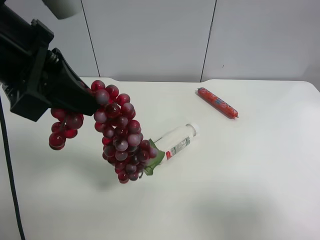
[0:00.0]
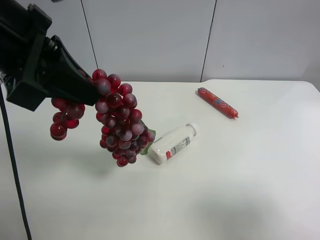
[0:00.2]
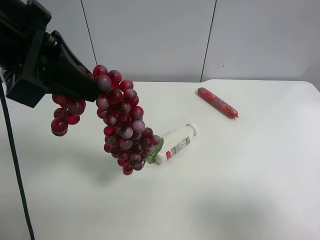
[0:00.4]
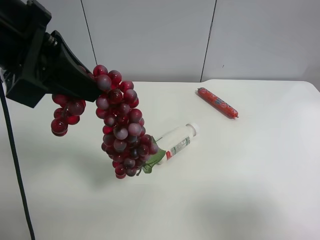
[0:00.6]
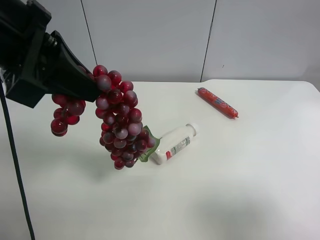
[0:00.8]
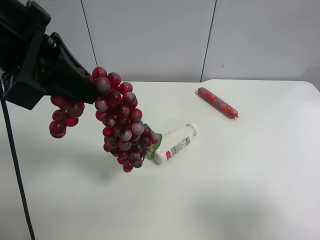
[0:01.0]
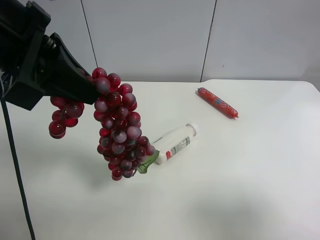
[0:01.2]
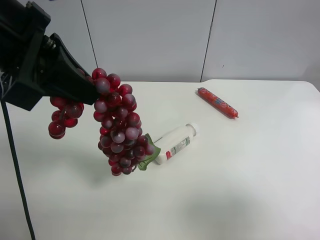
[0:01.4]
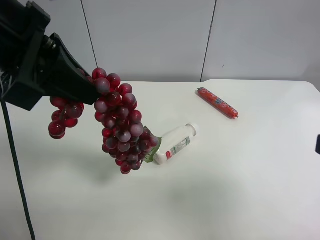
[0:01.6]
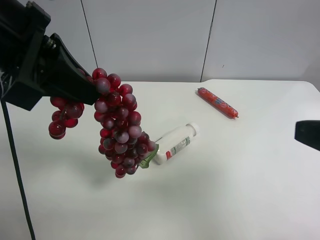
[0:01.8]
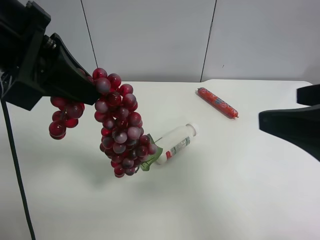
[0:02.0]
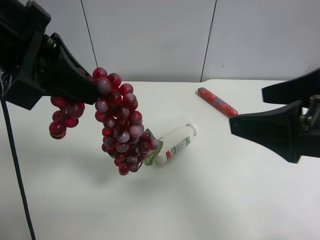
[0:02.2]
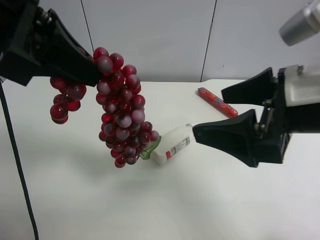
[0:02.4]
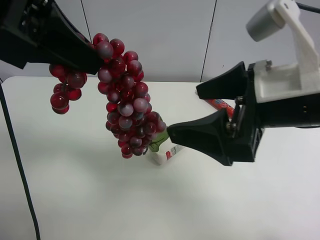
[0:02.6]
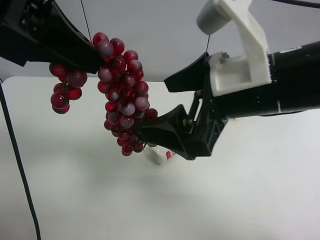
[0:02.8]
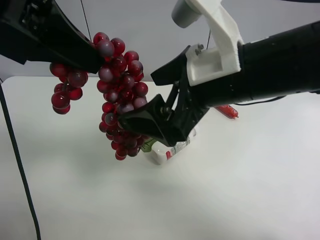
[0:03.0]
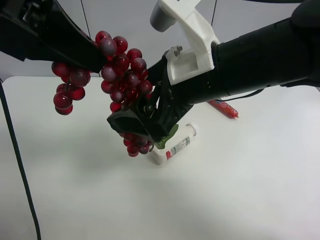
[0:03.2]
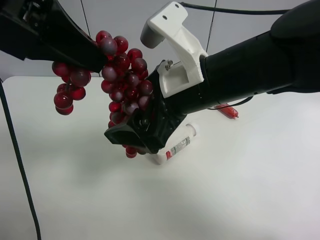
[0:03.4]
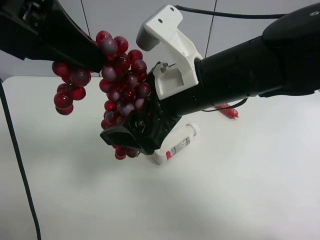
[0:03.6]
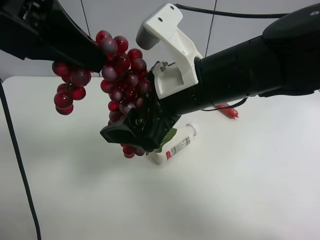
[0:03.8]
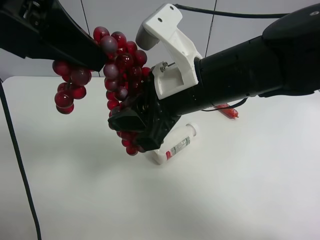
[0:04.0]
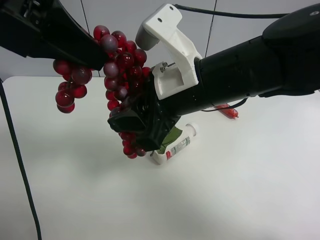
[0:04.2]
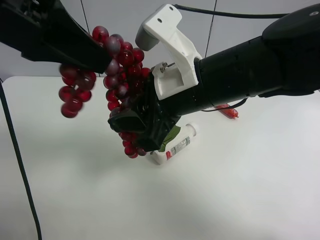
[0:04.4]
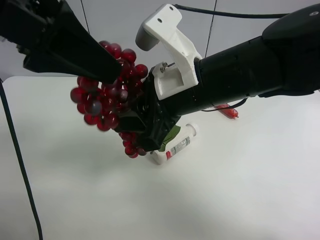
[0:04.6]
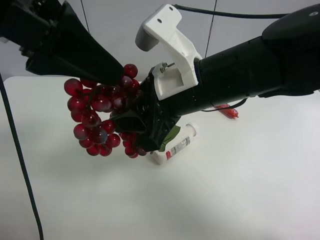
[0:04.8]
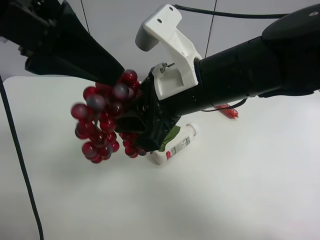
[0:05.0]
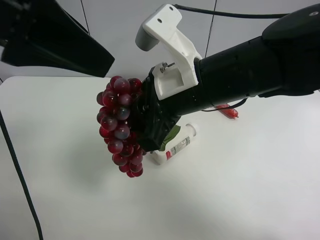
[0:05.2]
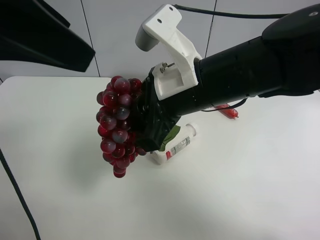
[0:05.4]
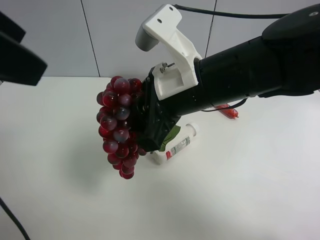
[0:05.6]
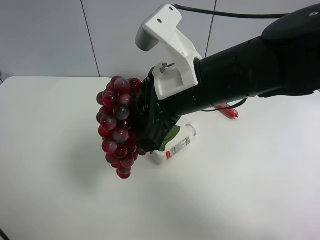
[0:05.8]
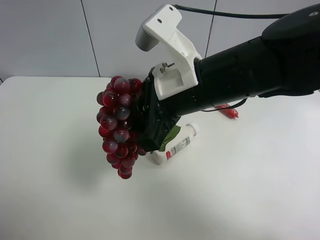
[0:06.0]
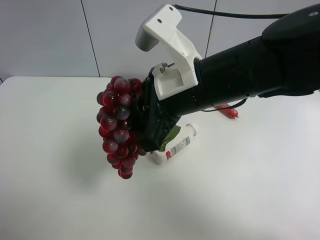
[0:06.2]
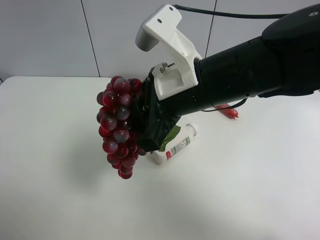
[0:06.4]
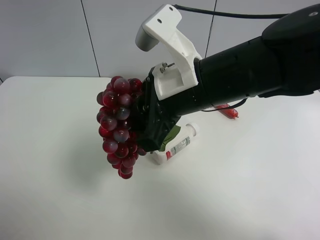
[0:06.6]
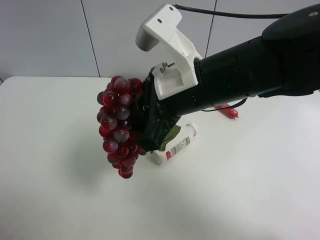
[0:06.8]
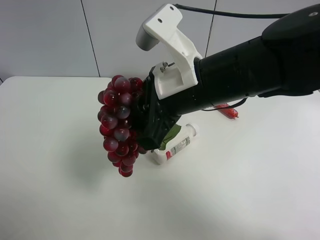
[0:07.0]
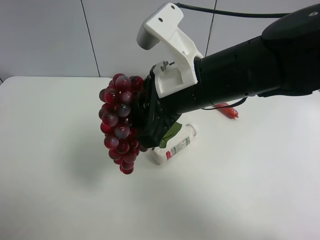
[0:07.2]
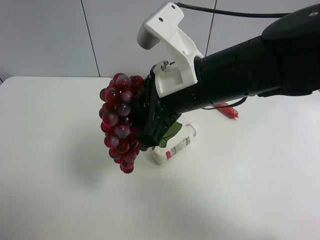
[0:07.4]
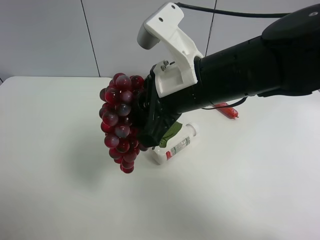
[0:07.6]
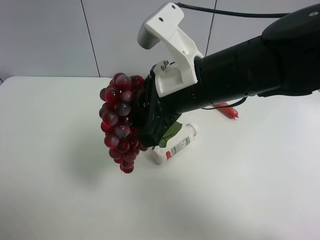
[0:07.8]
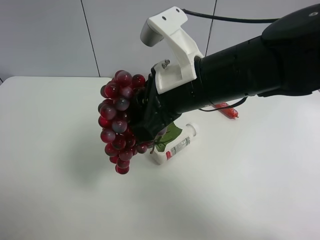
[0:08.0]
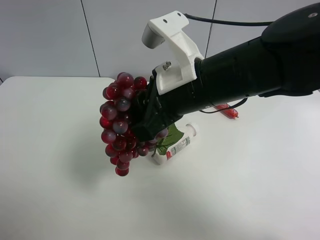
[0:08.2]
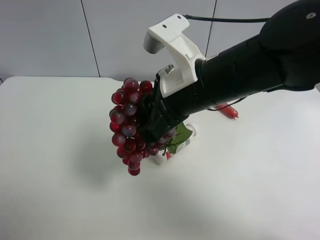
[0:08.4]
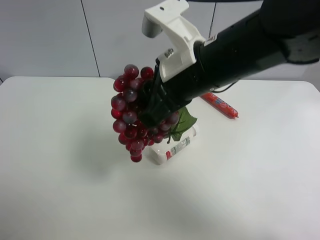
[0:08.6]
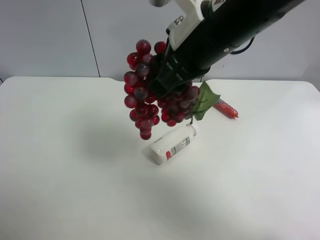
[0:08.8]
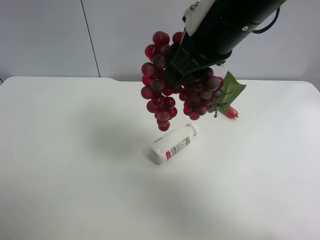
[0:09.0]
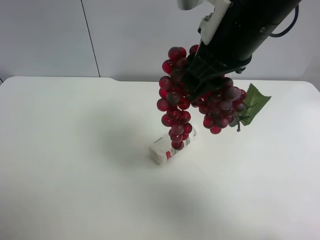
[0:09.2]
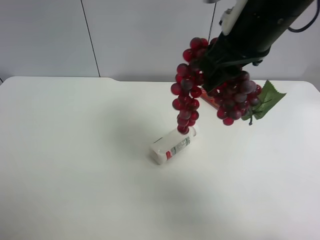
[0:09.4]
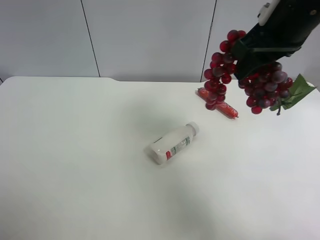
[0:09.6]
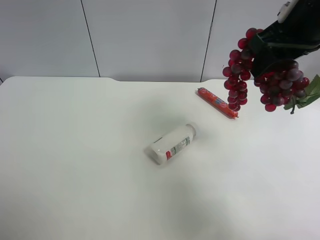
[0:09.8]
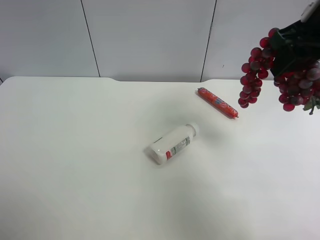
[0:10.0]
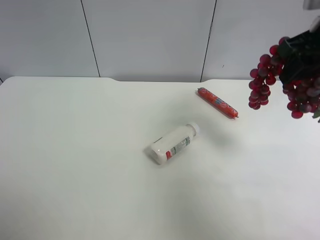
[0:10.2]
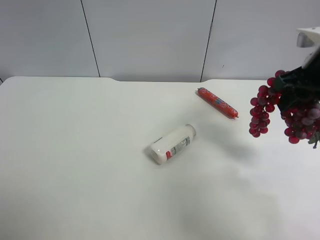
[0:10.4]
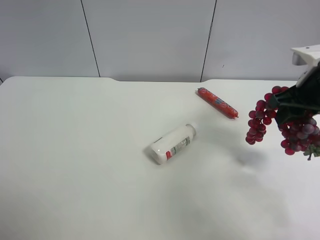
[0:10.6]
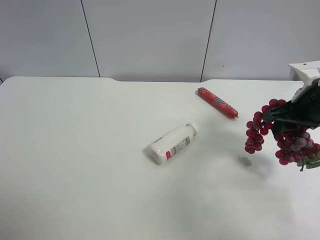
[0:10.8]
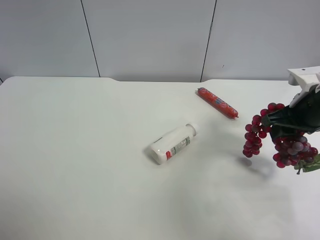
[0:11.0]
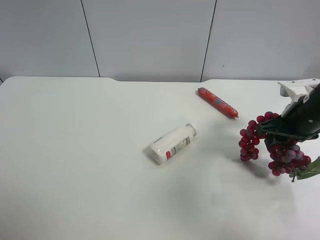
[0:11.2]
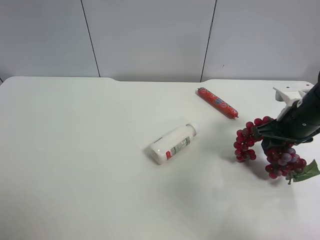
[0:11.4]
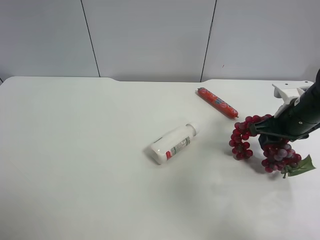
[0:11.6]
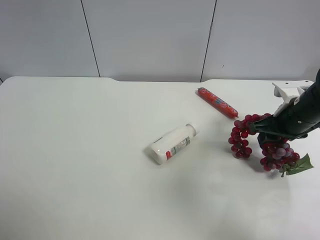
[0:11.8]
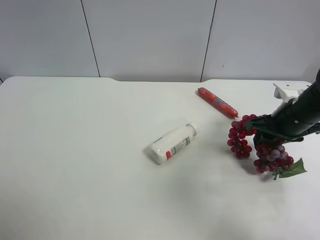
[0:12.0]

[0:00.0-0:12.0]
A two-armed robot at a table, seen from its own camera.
Task of the whole recording: use the left gripper to pick up the item and transfer it from the left gripper to the right gripper.
0:00.0 to 0:01.6: The right gripper shifts by approximately 5 cm.
0:01.6 to 0:03.0: The right gripper travels to the left and forward by roughly 20 cm.
0:03.0 to 0:04.4: The left gripper opens; the right gripper closes its fingers.
0:04.4 to 0:06.0: The left gripper goes some 15 cm to the left and backward, and opens its fingers.
0:06.0 to 0:07.6: The left gripper travels downward and backward by approximately 15 cm.
0:07.6 to 0:09.0: The right gripper heads upward, covering roughly 10 cm.
0:09.0 to 0:10.4: The right gripper heads to the right, covering approximately 20 cm.
0:10.4 to 0:12.0: The right gripper moves downward, roughly 10 cm.

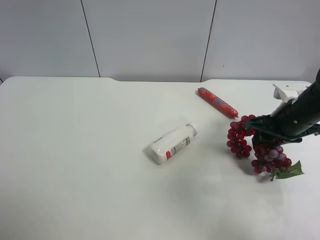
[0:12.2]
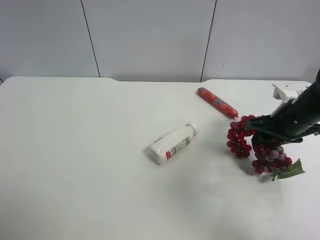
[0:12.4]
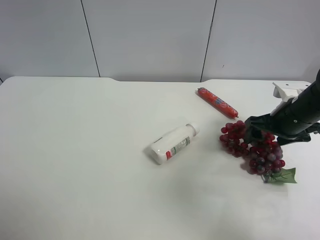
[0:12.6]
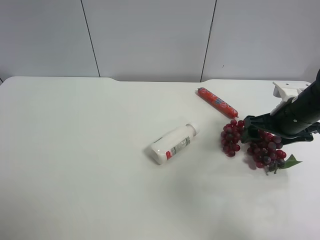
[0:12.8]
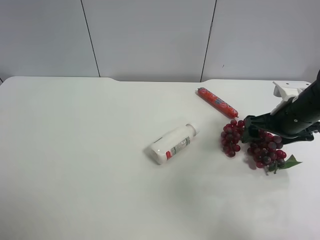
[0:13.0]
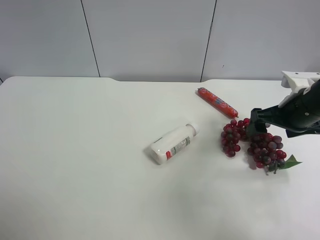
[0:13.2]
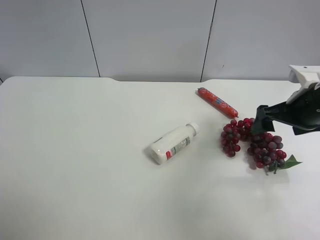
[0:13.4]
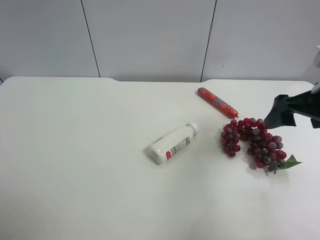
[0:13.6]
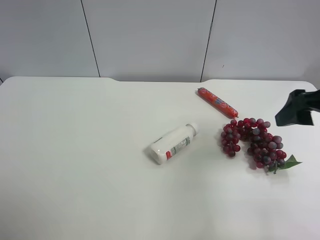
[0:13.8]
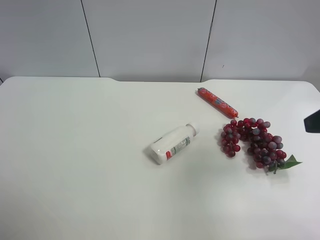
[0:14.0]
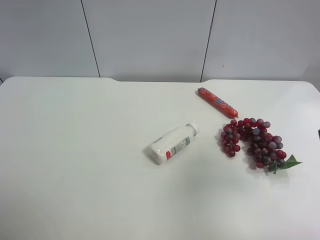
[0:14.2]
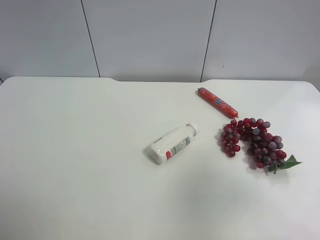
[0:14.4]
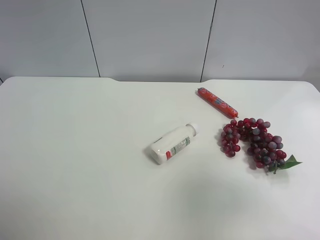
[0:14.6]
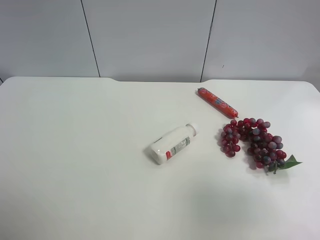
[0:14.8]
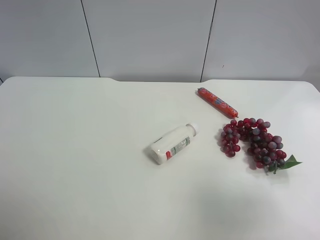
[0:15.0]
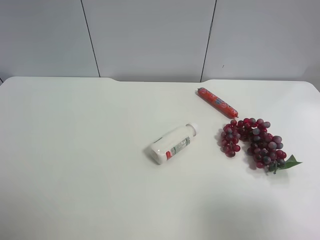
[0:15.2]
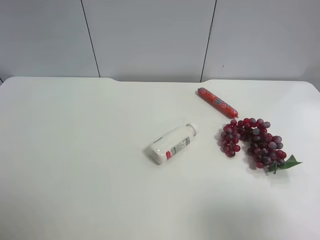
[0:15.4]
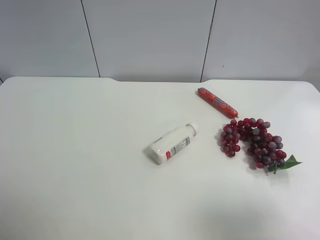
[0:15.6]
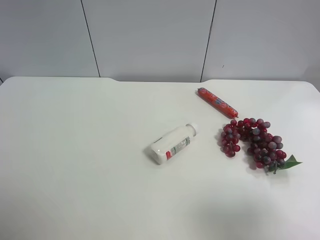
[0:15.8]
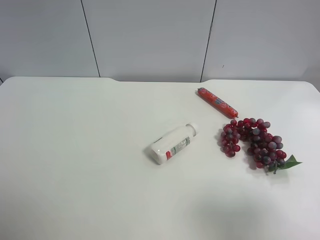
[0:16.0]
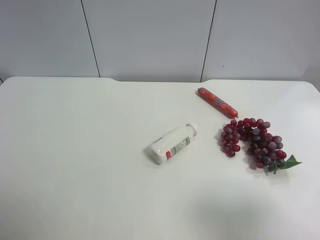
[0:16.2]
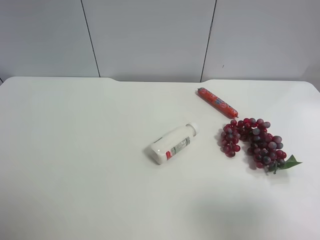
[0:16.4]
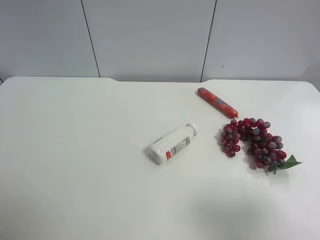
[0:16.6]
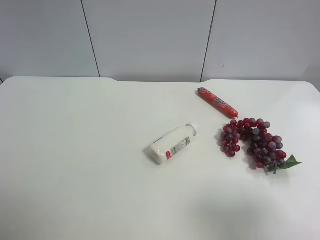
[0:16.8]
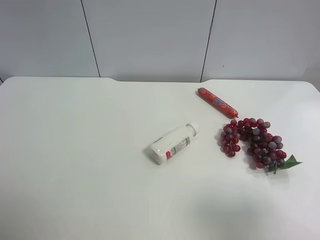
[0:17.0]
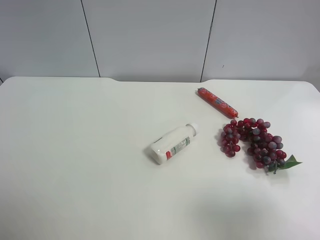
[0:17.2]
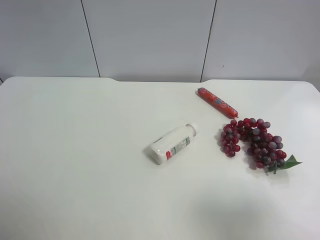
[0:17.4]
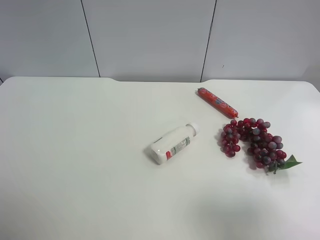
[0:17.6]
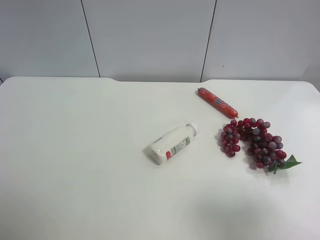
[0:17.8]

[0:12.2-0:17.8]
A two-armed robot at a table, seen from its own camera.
Task of the whole recording: use the left gripper to pick up the item and transfer it from the left gripper to the right gripper.
0:12.2 to 0:13.6: The right gripper travels upward and backward by roughly 10 cm, and opens up.
0:13.6 to 0:15.0: The right gripper shifts some 20 cm backward.
0:16.4 to 0:17.8: Both grippers stay about where they are.
